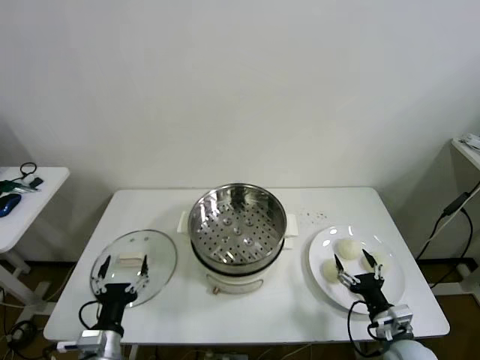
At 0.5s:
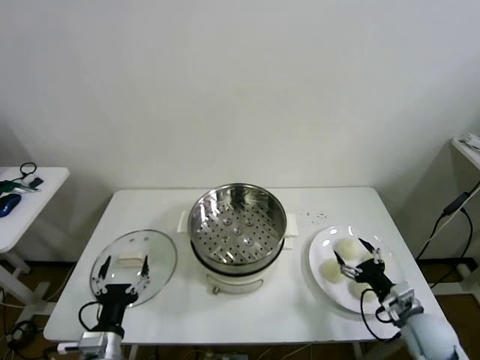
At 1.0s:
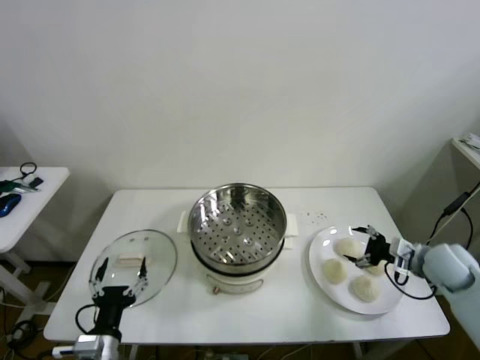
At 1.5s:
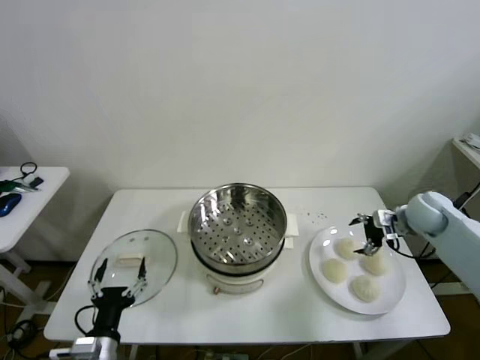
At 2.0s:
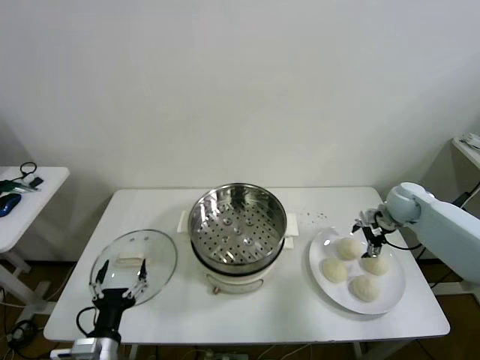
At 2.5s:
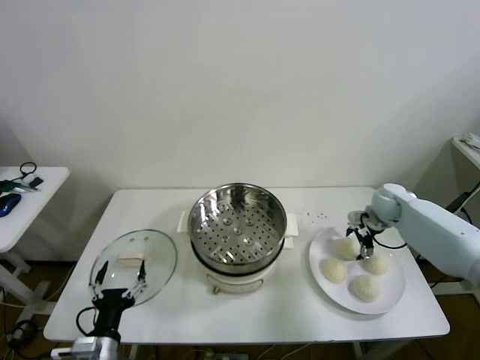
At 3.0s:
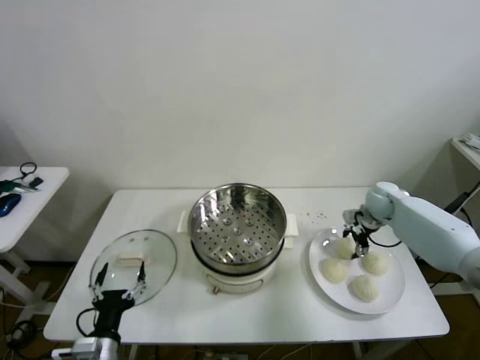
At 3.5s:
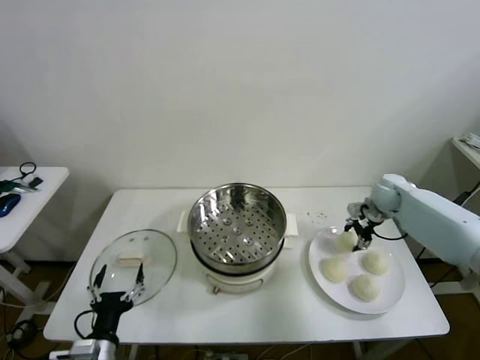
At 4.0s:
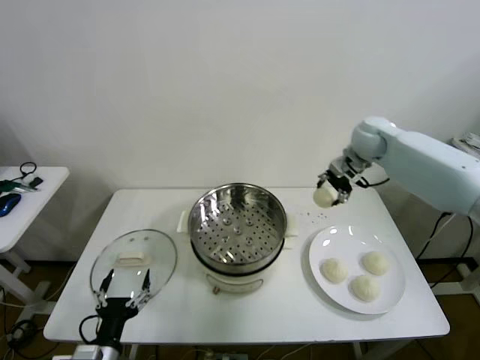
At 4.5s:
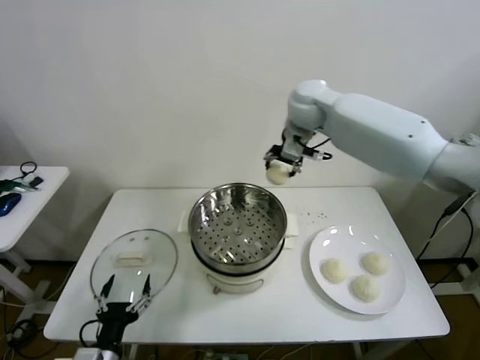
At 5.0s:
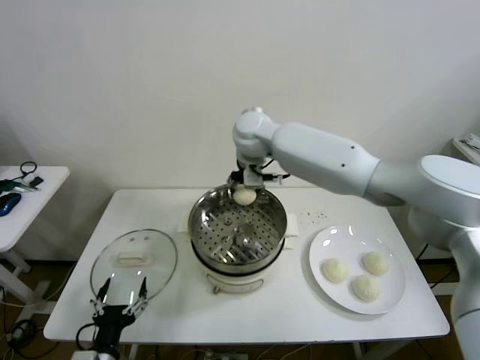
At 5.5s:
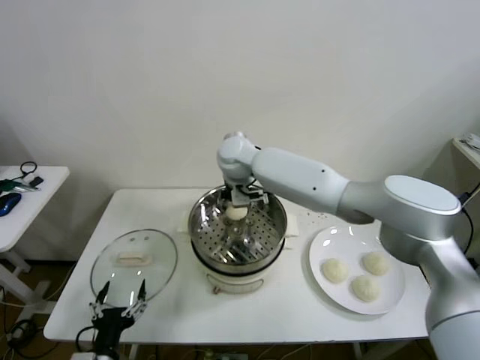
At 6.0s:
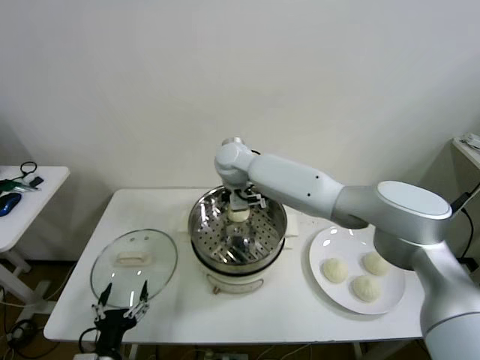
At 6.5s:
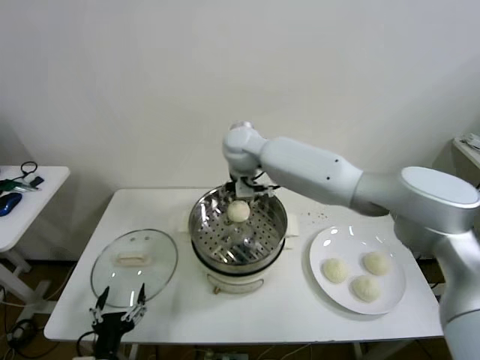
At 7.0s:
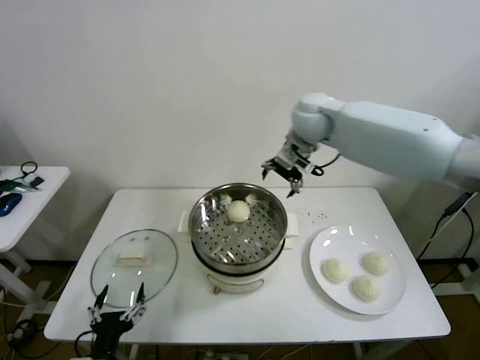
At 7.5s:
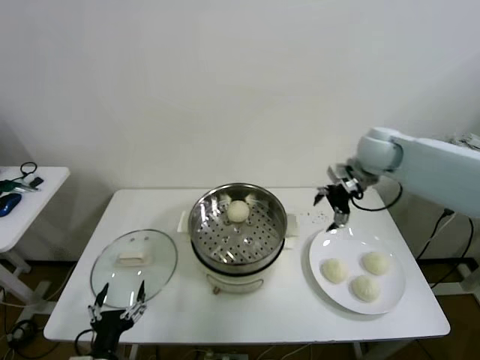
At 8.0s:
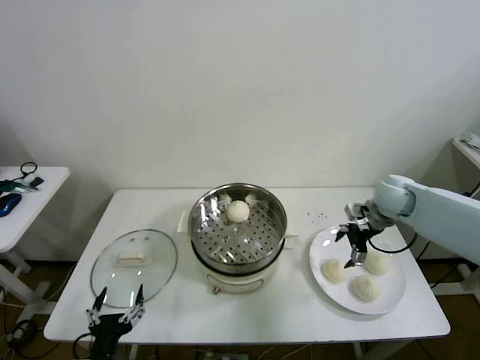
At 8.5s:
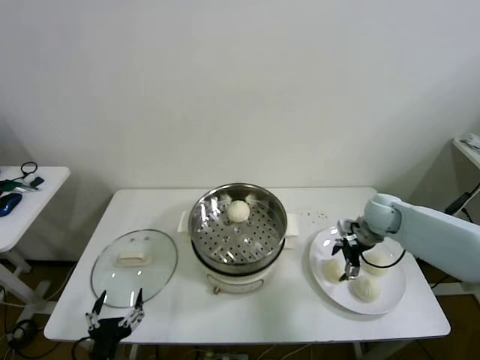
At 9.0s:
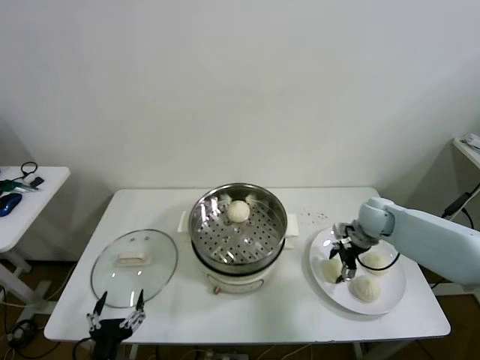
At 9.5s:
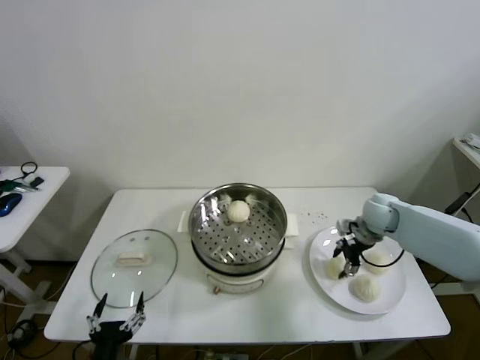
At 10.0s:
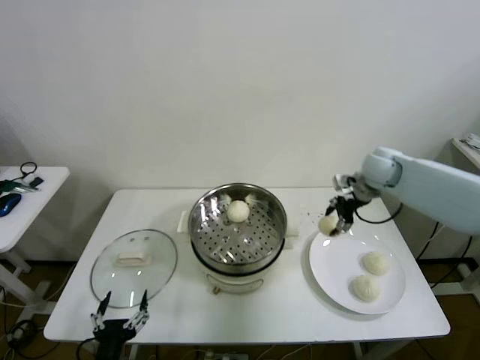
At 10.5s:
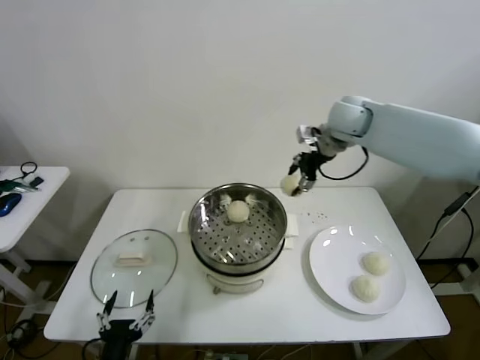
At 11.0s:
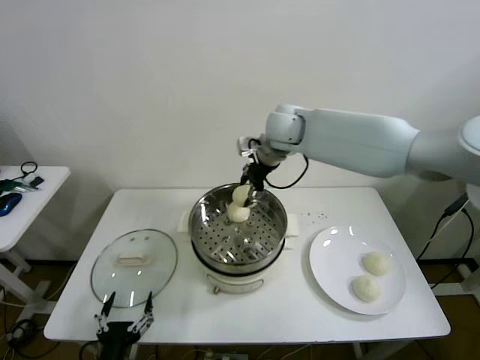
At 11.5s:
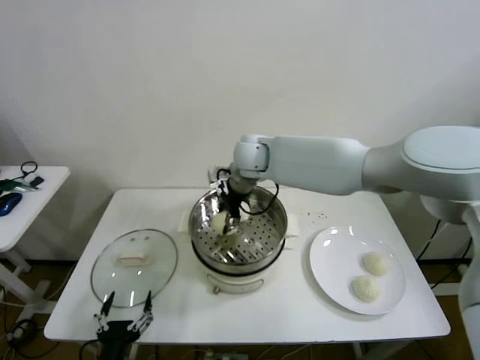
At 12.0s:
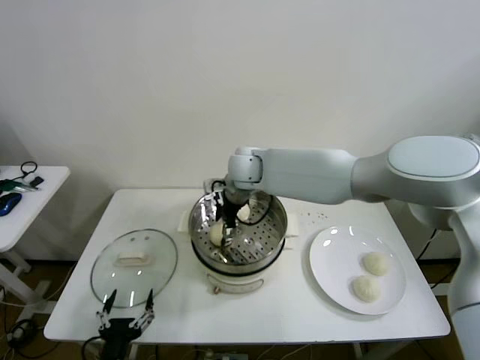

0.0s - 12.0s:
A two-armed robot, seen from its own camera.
Step, 0.0s - 3.0s: Grasp the baozi in the plate with right gripper.
Step, 3.5s - 5.5s: Place the baozi on the steamer with right gripper.
Step, 6.0s - 9.0s: Grasp the baozi in the plate with right gripper.
2.0s - 4.0s: The right gripper heads upward and to the left, covering approximately 25 cm, and closes its fingers.
4.0s - 6.0s: The right gripper shifts some 30 cm to the left, and opens.
6.0s - 8.0s: The right gripper travels to the right by approximately 40 cm.
8.0s - 10.0s: The right gripper heads upward and forward, covering some 10 cm, and closes up.
10.0s - 12.0s: The right gripper is displaced to the left by some 30 cm, and opens.

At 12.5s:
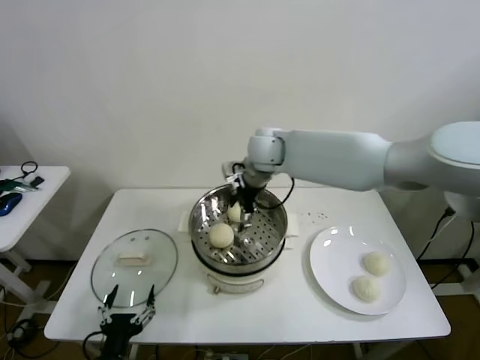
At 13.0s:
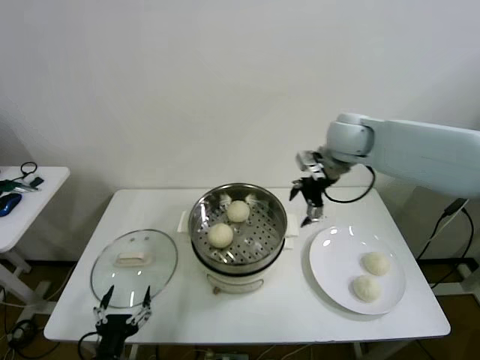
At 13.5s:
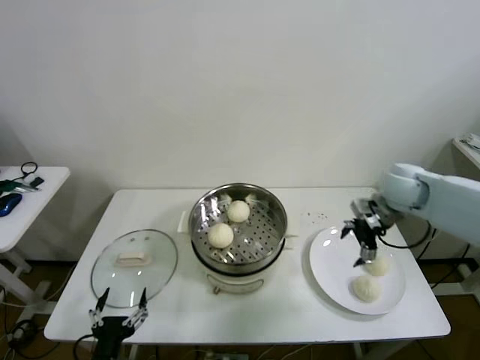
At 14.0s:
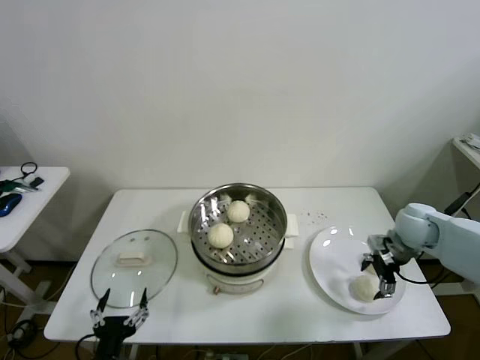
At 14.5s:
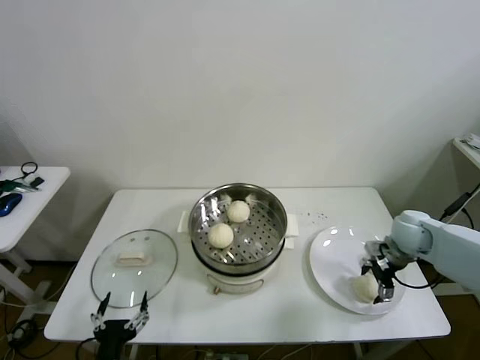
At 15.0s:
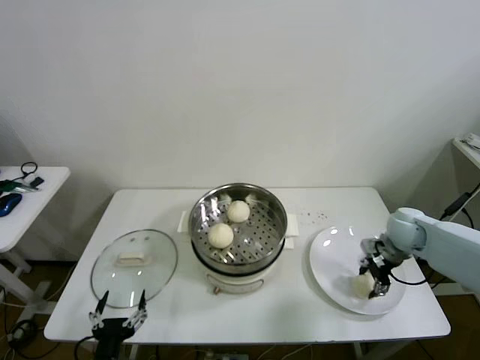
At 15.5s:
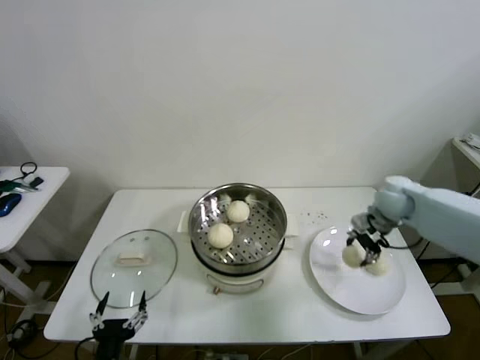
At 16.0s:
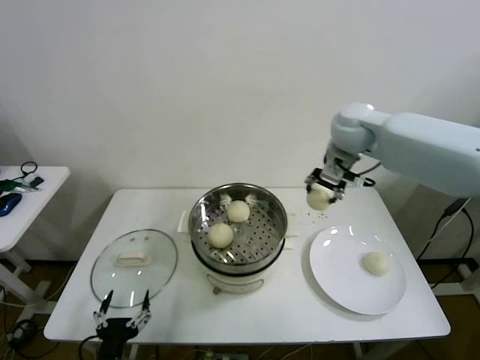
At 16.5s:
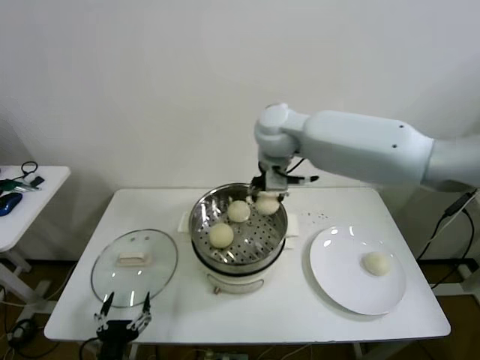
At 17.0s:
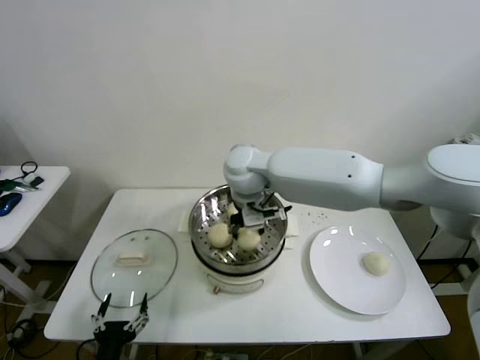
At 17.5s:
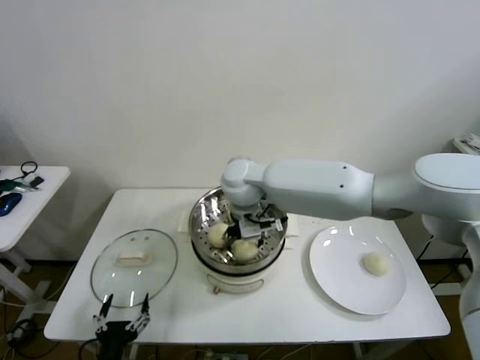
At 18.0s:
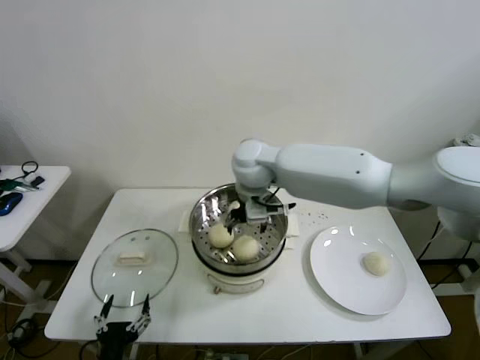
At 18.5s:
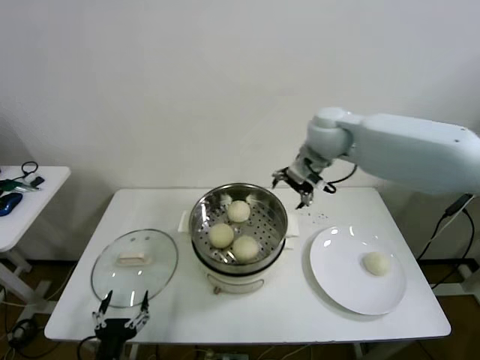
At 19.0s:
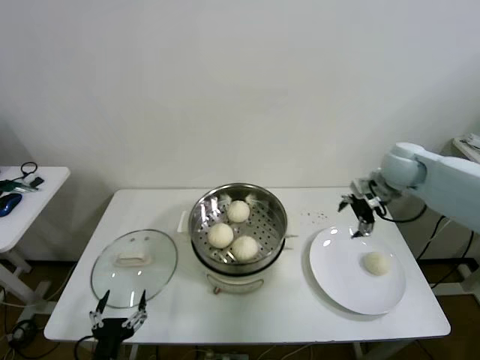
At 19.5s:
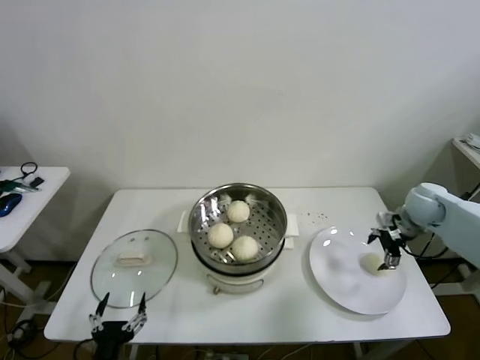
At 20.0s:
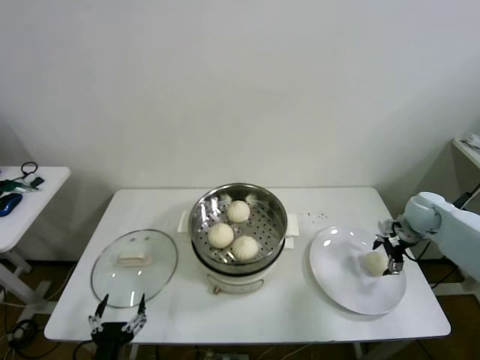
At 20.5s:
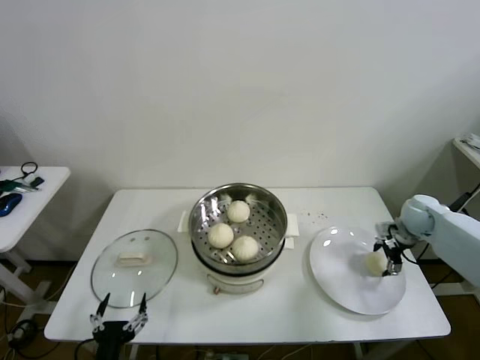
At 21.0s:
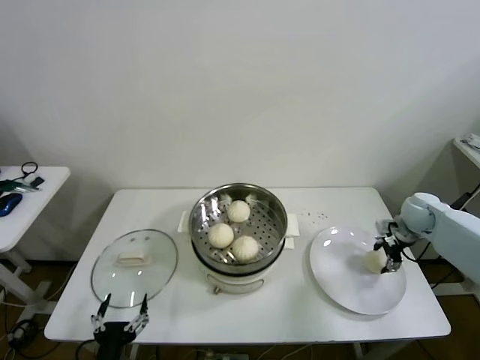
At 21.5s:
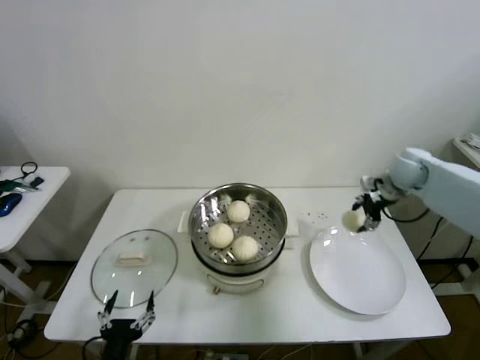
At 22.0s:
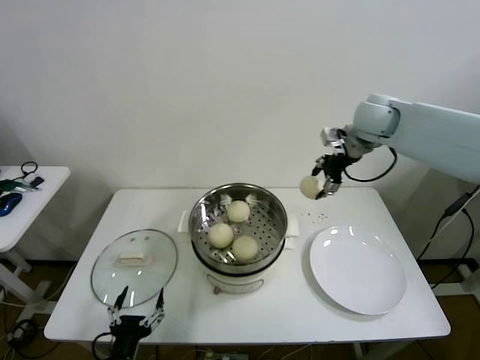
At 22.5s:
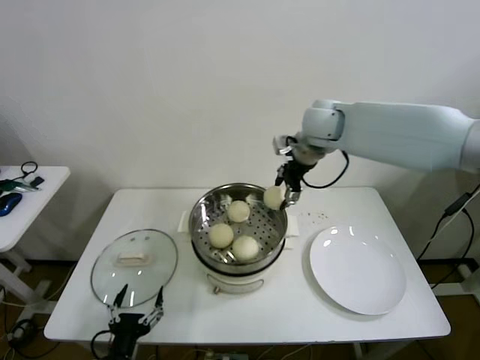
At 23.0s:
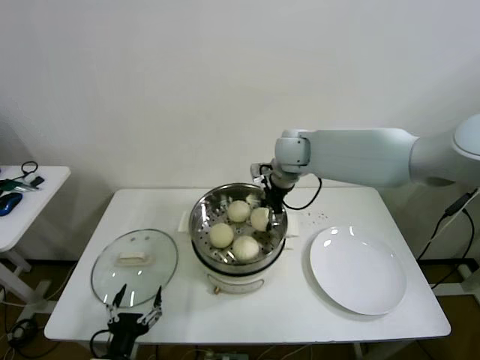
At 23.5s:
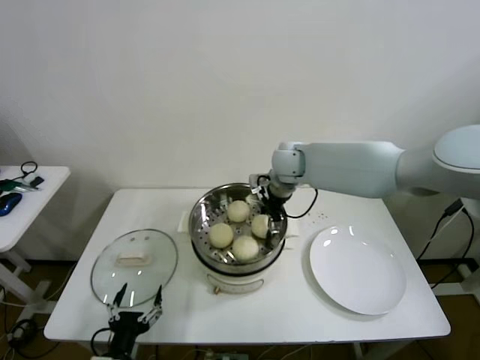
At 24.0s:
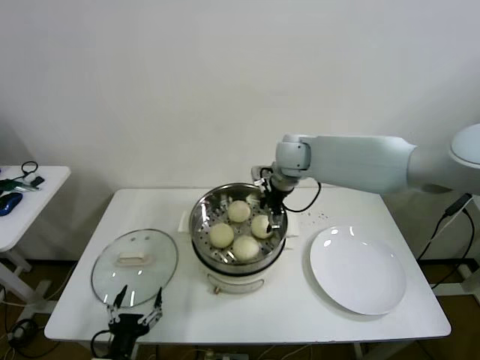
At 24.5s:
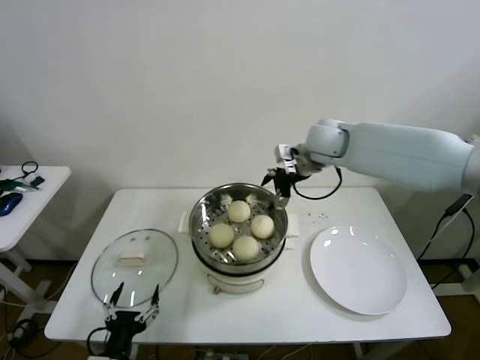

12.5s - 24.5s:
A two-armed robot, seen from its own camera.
Step, 12.5s - 14.5s: Grasp the baozi in the plate with right gripper.
Step, 15.0s - 17.5s: Place the baozi on the steamer with right gripper.
Step, 18.0s - 20.5s: Grasp the baozi in the plate with right gripper.
Step, 21.0s - 23.5s: Place the baozi on the steamer with right gripper.
12.5s - 14.5s: The right gripper goes approximately 40 cm to the right and downward.
14.5s - 16.5s: The right gripper heads to the left and upward, covering approximately 40 cm, and closes.
16.5s - 18.5s: The right gripper moves to the right, about 15 cm, and opens.
18.5s - 20.5s: The right gripper goes approximately 35 cm to the right and downward.
20.5s - 22.5s: The right gripper travels to the left and upward by about 35 cm, and closes its fingers.
22.5s - 24.5s: The right gripper opens its fingers.

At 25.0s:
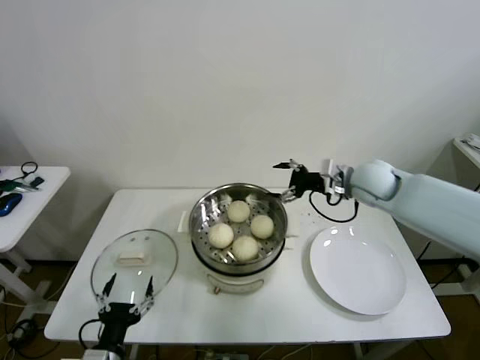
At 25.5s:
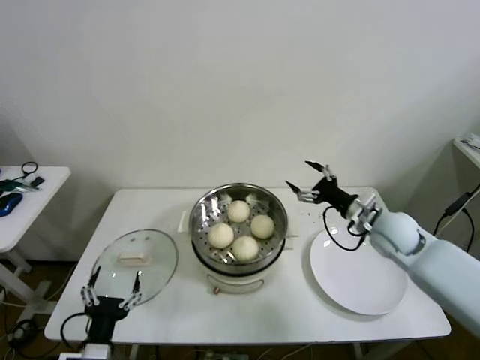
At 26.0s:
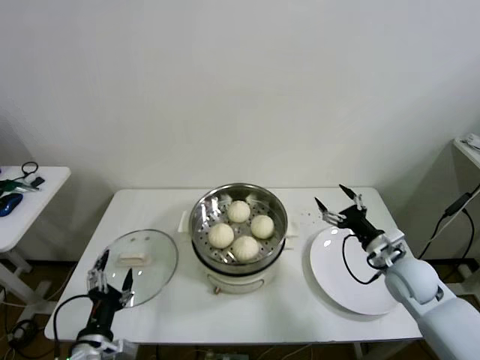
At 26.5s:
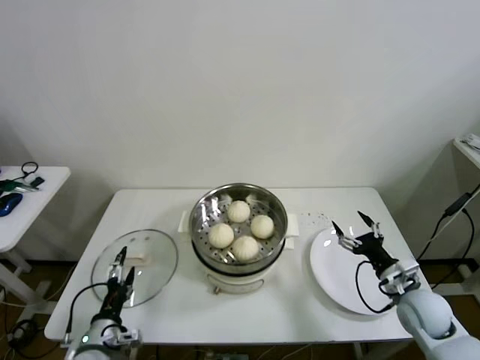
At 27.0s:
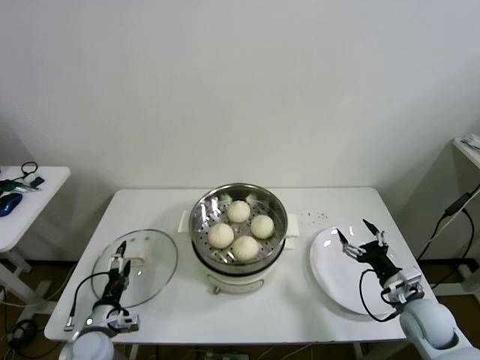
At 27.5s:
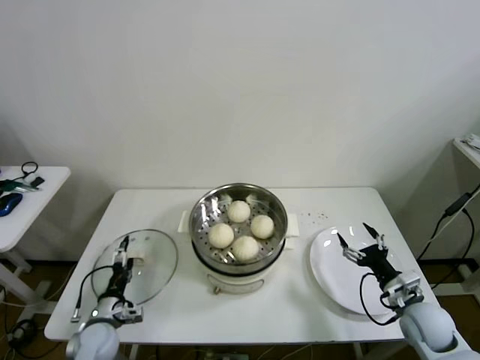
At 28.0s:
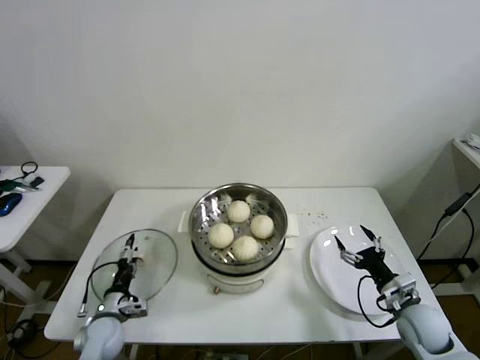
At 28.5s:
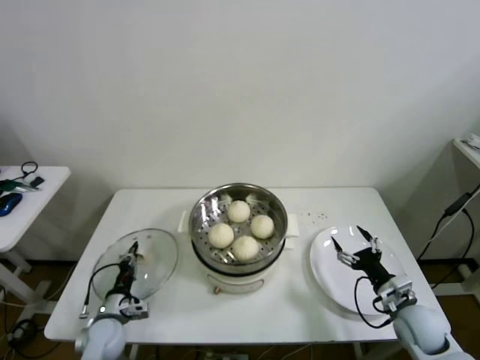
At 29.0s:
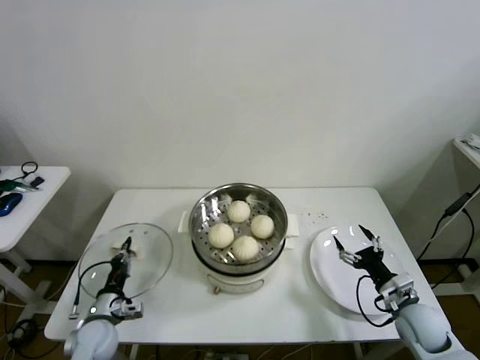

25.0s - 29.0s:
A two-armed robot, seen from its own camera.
Step, 25.0s - 28.5s: Grasp the pot lid with left gripper.
25.0s - 27.0s: The left gripper goes approximately 15 cm forward, downward and to the left; the right gripper heads backward, downward and to the right, covering roughly 30 cm.
27.0s - 29.0s: The left gripper closes its fingers.
